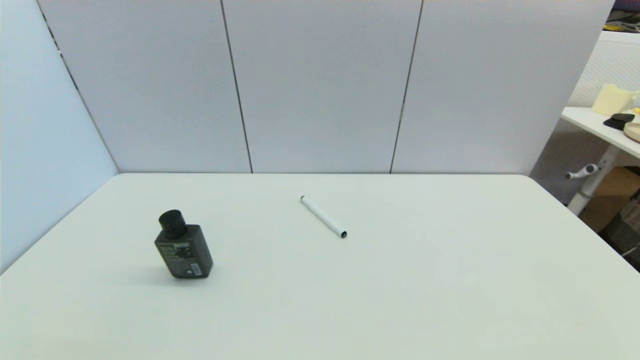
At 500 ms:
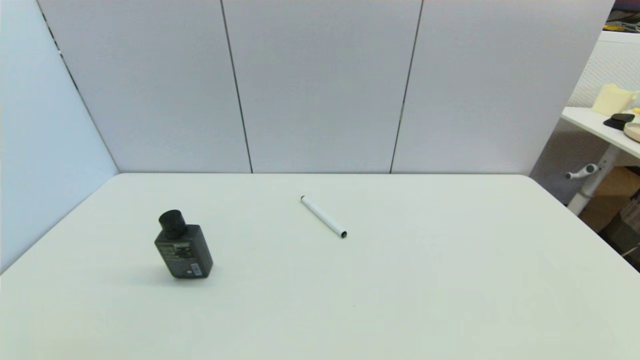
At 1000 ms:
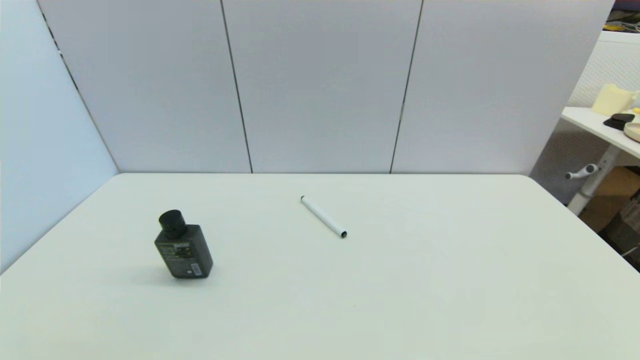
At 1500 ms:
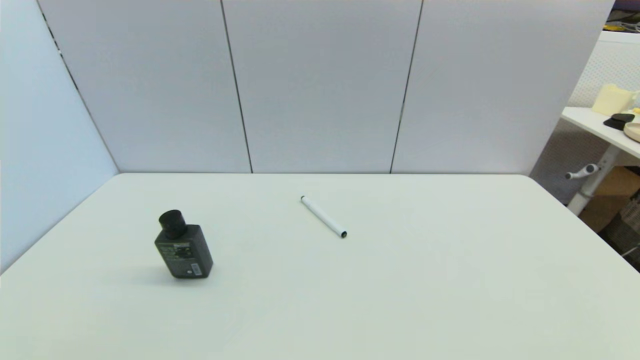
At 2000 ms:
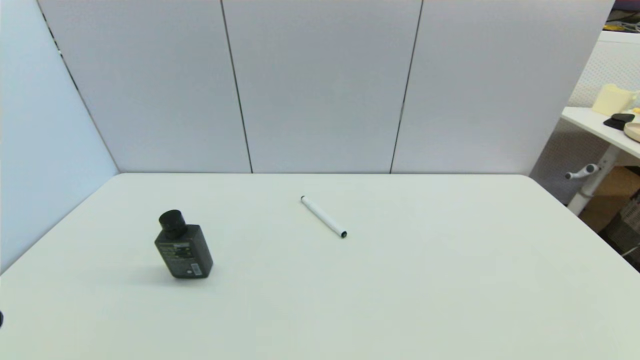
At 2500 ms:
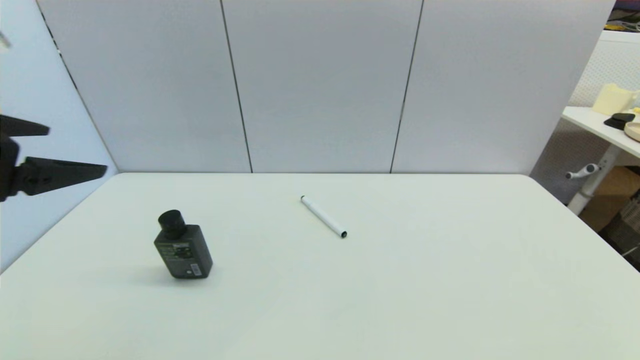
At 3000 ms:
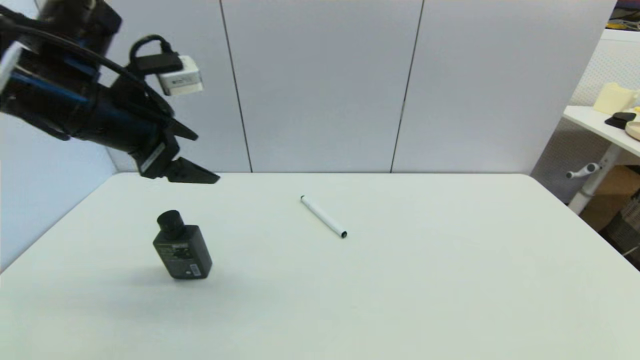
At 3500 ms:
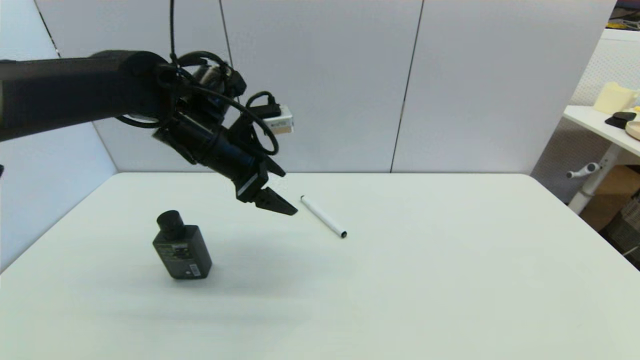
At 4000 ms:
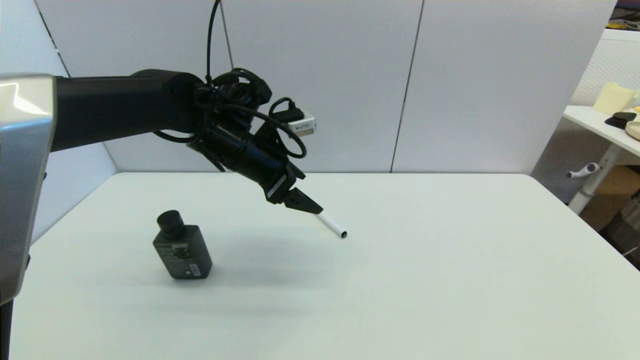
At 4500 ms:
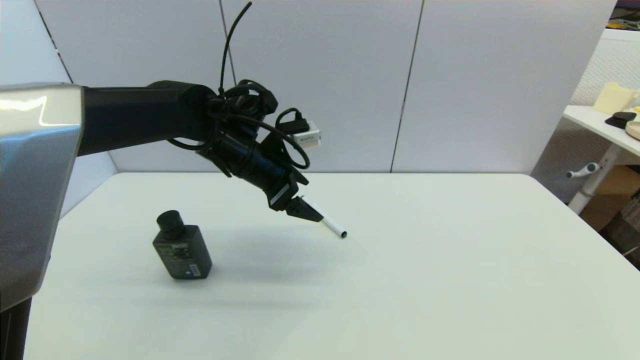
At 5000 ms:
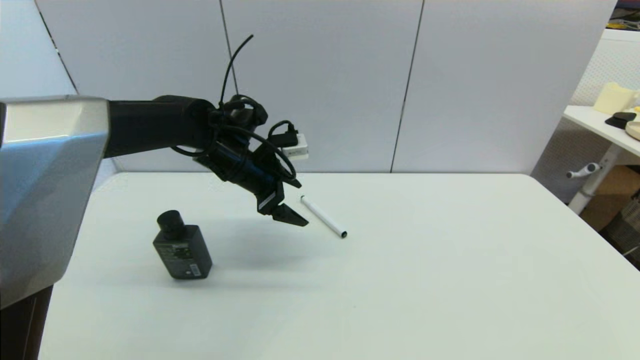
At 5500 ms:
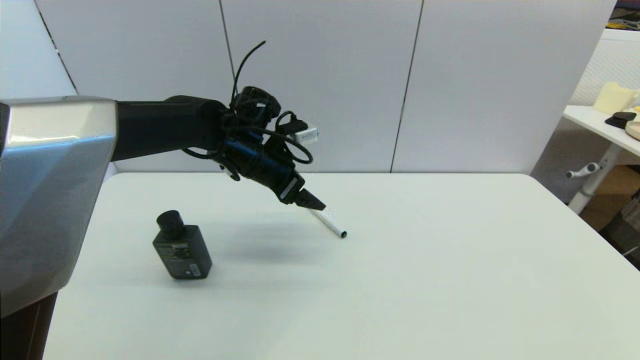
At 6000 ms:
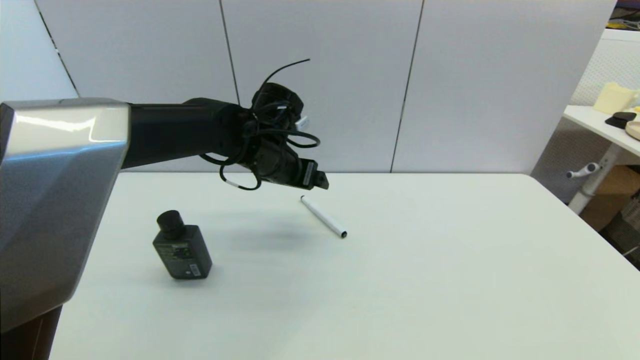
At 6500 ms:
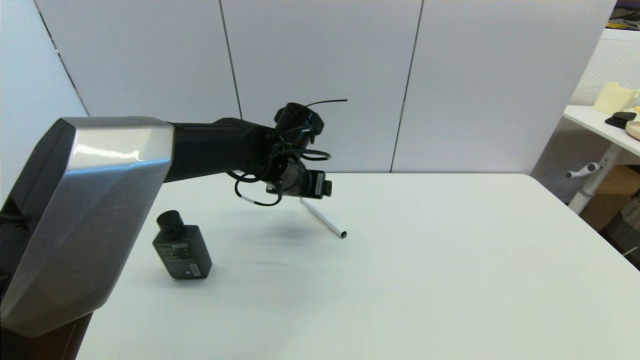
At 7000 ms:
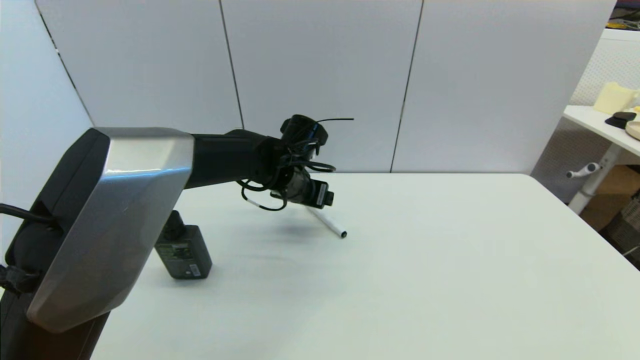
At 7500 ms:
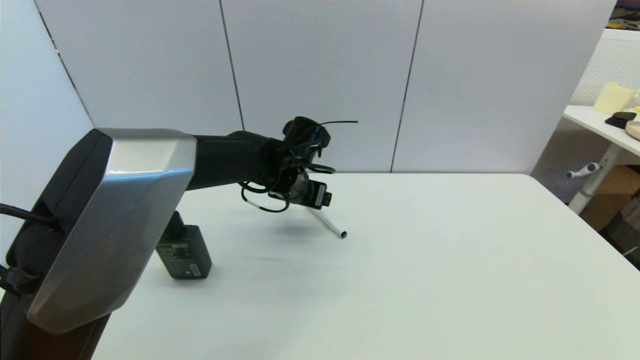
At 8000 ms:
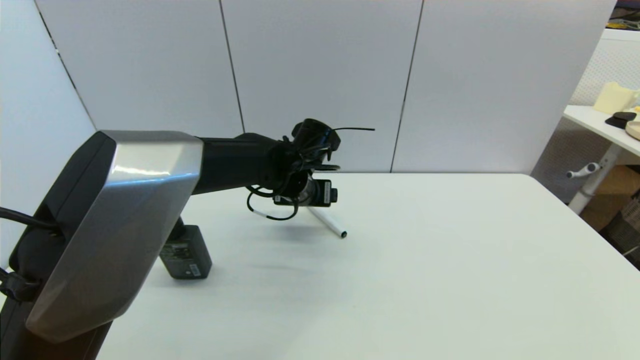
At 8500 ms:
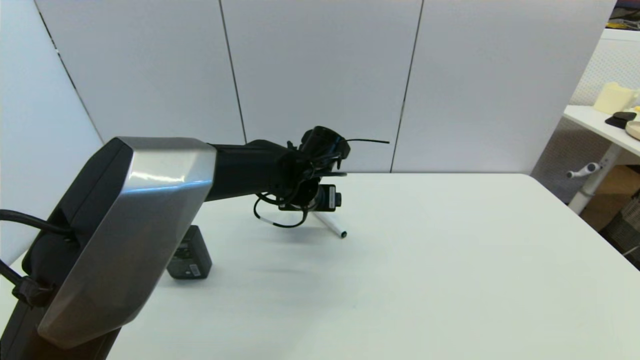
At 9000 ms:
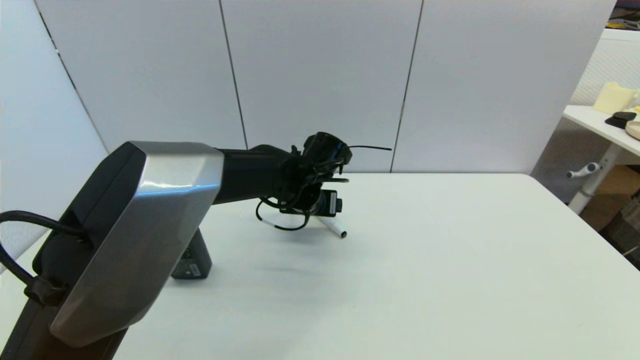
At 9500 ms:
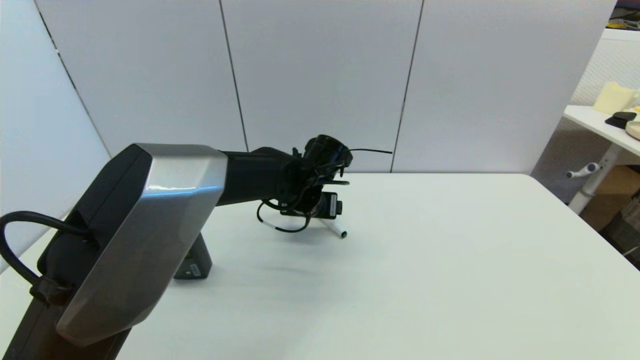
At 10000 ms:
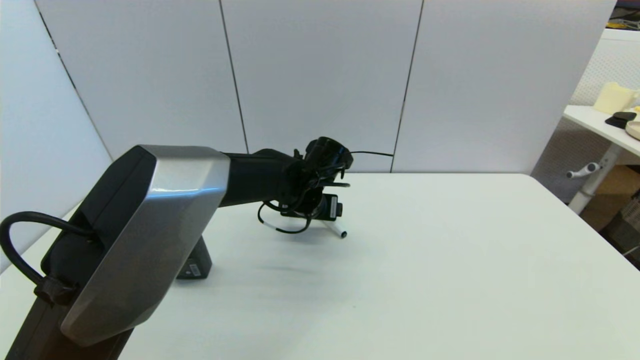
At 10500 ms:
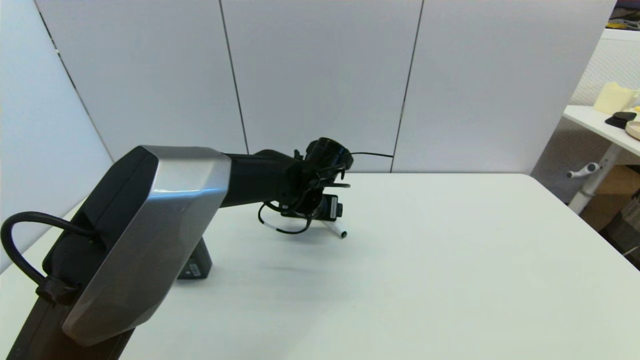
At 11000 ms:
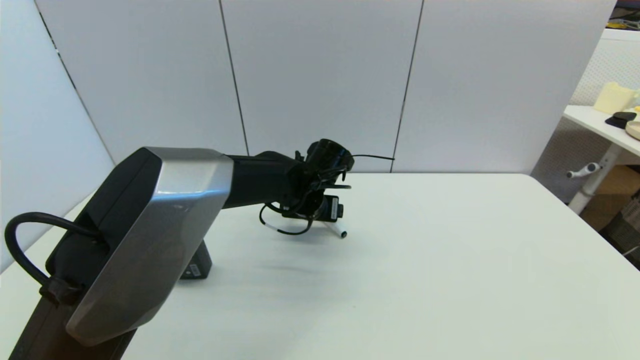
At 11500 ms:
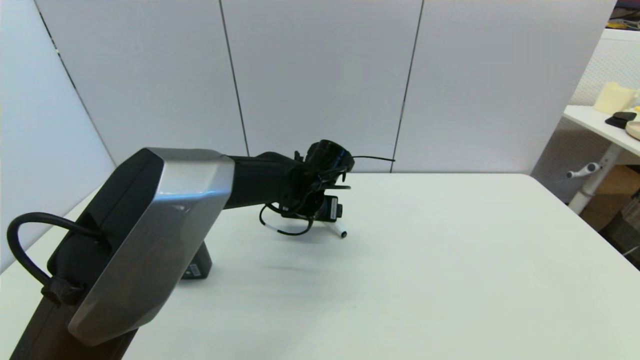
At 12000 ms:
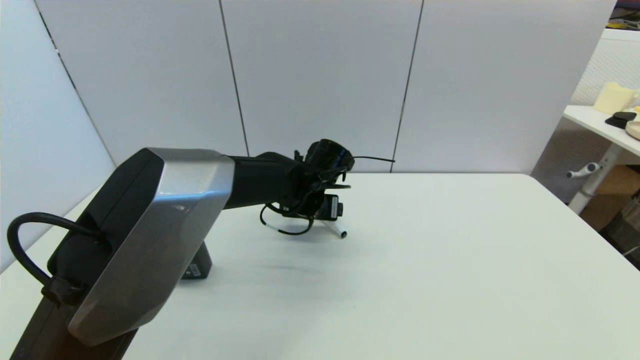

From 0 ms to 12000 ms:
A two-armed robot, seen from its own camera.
Task of the whole recording: put the black marker in the designated position.
From 2000 ms to 4000 ms: The left gripper moves forward and to the right, roughly 40 cm.
From 4000 ms to 6000 ms: The left gripper ends up approximately 5 cm from where it was.
From 6000 ms to 8000 ms: The left gripper changes place by some 5 cm.
From 8000 ms to 10000 ms: The grippers move only a little.
From 10000 ms to 12000 ms: Both grippers stay about where they are.

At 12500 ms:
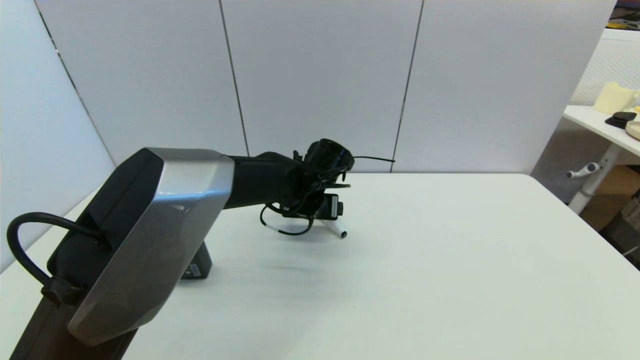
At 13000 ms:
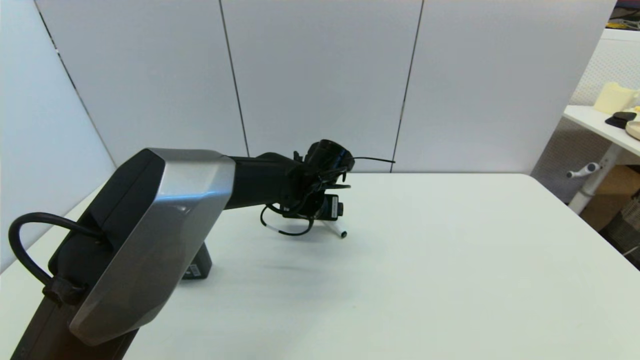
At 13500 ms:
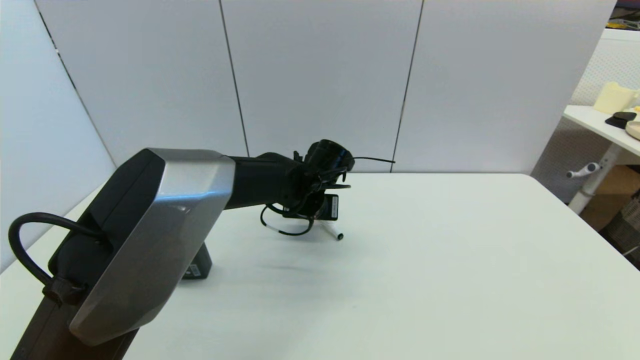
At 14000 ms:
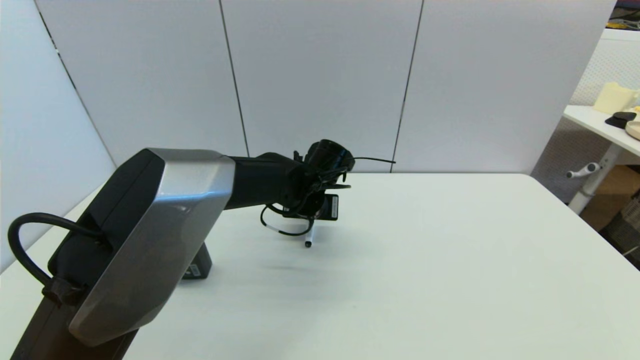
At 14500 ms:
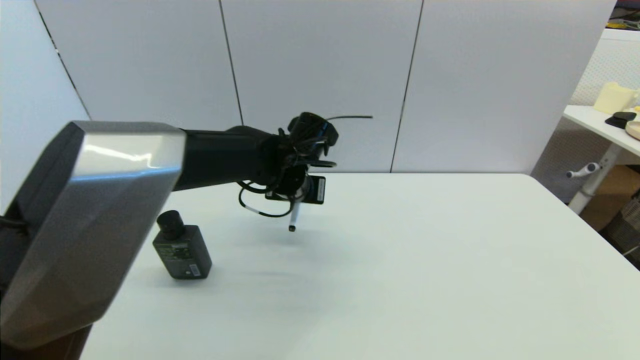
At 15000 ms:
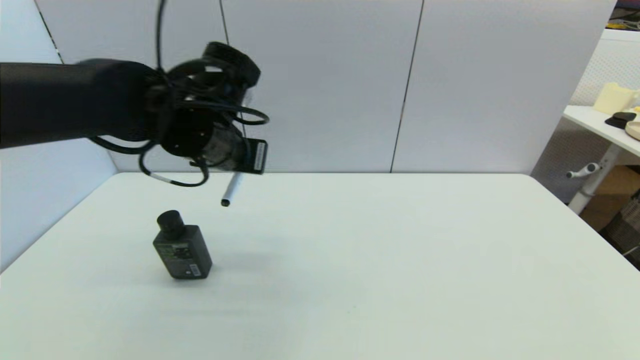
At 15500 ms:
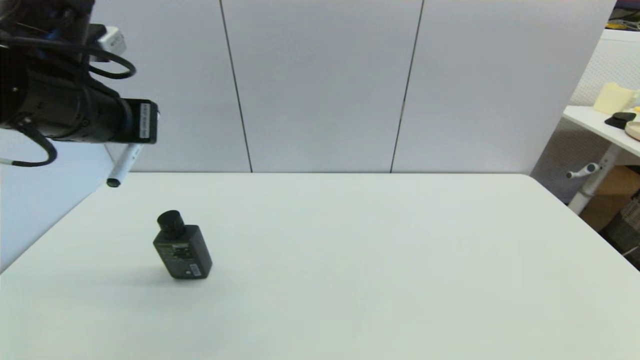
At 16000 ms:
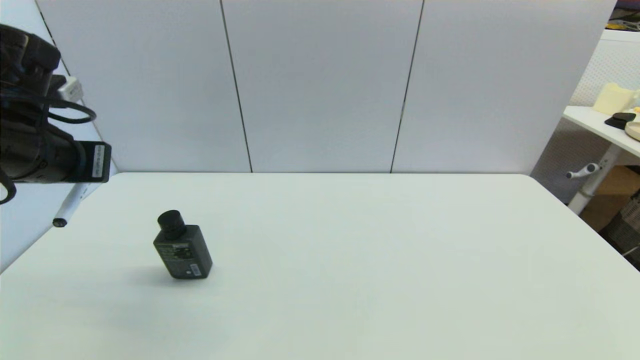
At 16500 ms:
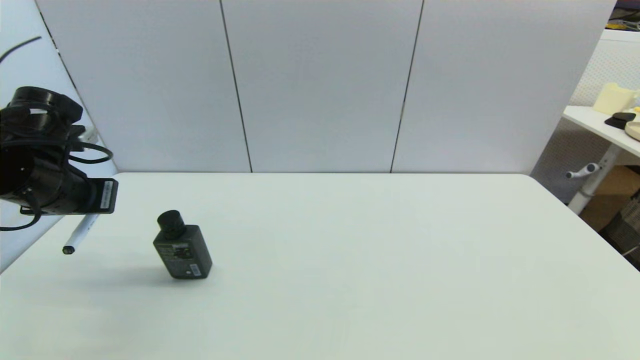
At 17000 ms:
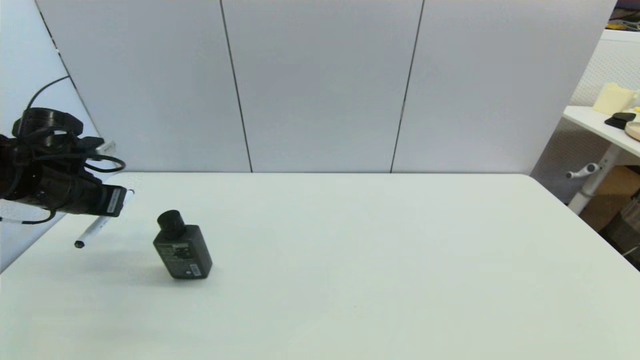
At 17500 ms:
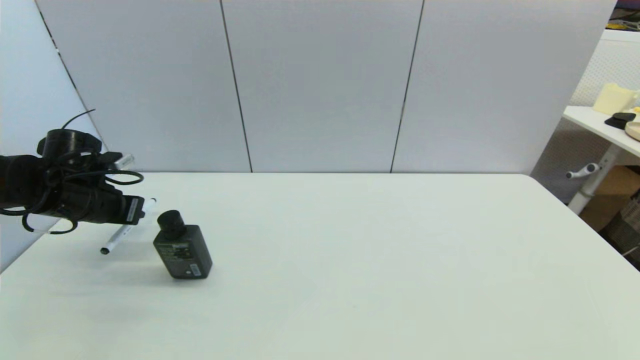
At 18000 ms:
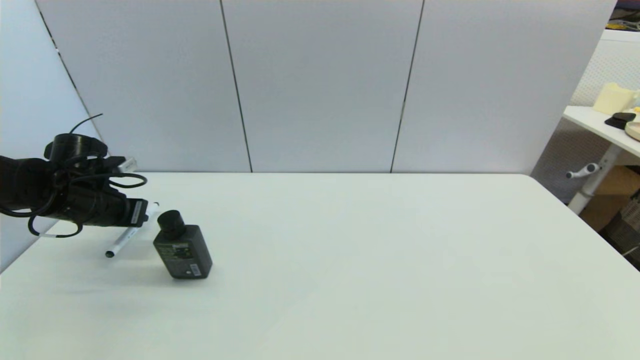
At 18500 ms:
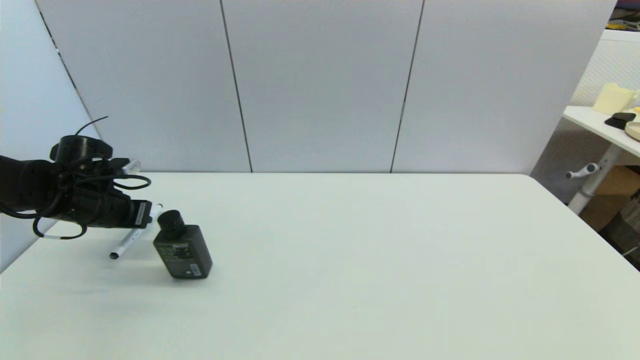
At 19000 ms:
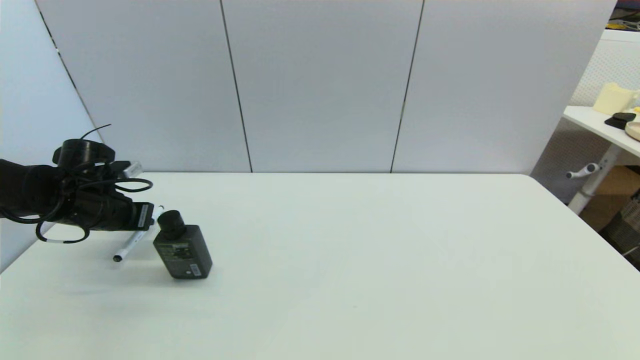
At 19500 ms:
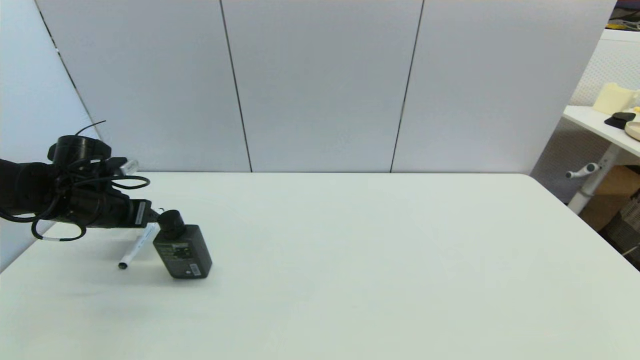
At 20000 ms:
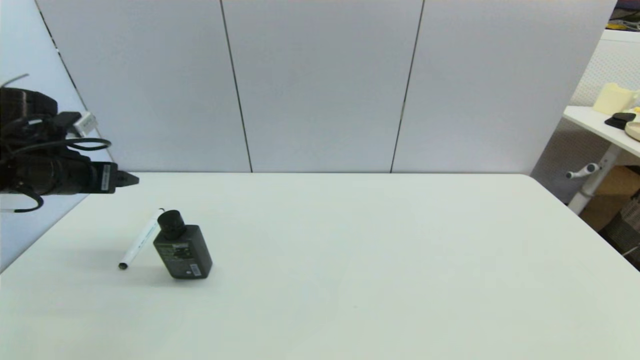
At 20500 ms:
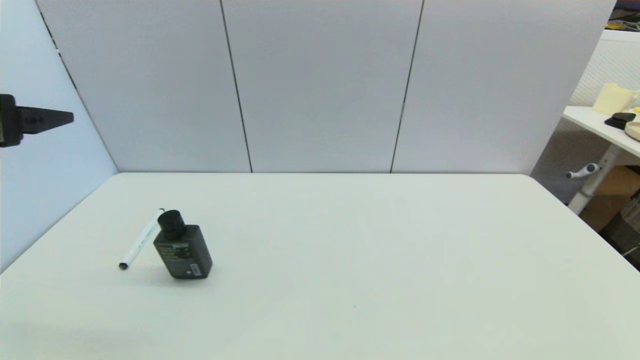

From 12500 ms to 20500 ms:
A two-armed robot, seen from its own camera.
Task of the whole recording: put the black marker in the designated position.
Step, from 14500 ms to 19500 ms: Place the Marker pen on the table with left gripper.
From 12500 ms to 14500 ms: The left gripper moves approximately 5 cm, and closes up.
From 14500 ms to 16500 ms: The left gripper shifts approximately 30 cm to the left.
From 16500 ms to 18500 ms: The left gripper shifts roughly 10 cm downward and forward.
From 18500 ms to 20500 ms: The left gripper is displaced upward and backward by roughly 25 cm, and opens up.
